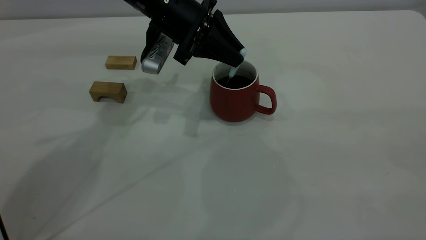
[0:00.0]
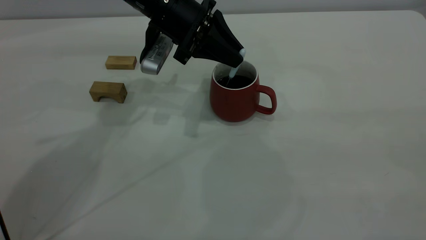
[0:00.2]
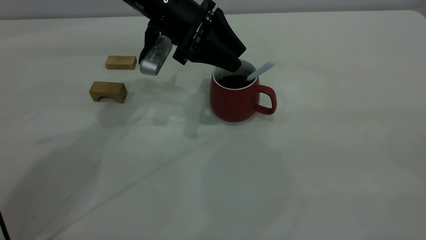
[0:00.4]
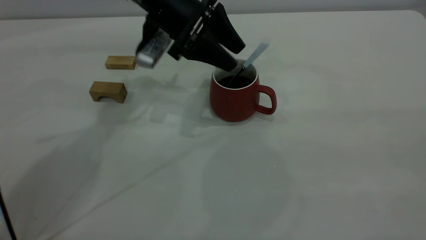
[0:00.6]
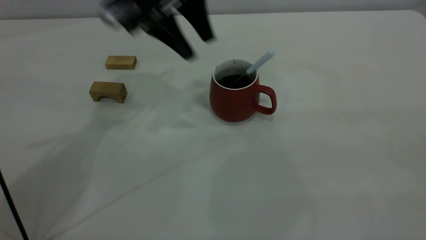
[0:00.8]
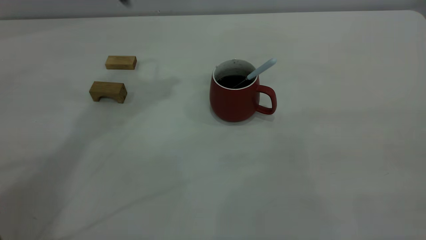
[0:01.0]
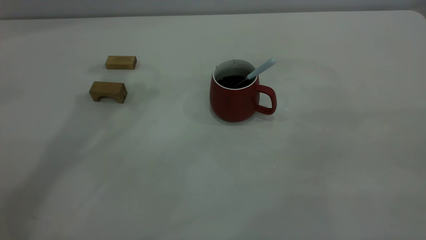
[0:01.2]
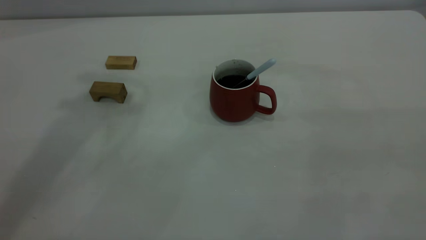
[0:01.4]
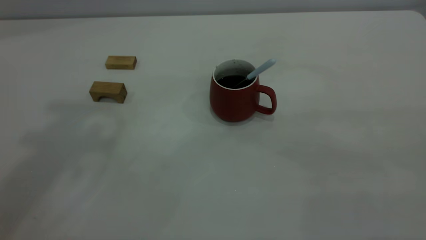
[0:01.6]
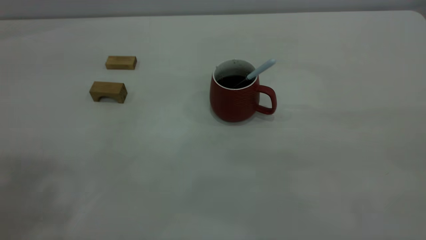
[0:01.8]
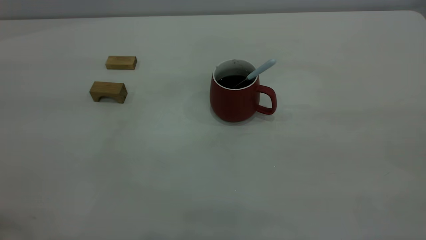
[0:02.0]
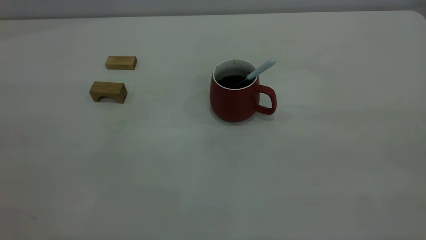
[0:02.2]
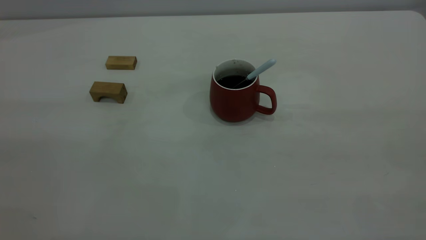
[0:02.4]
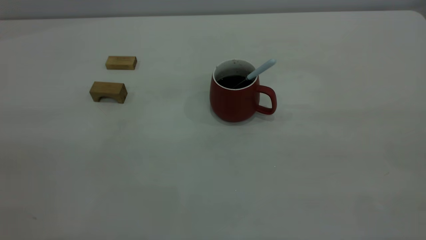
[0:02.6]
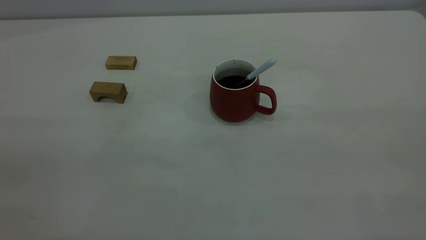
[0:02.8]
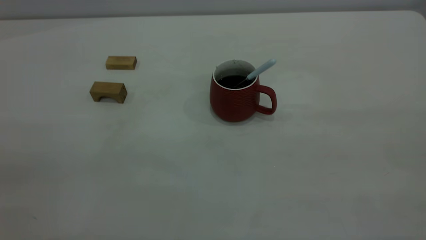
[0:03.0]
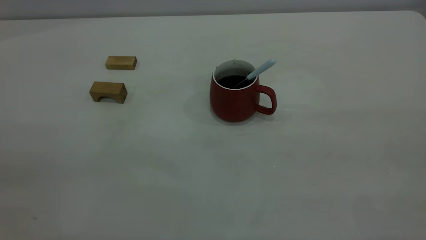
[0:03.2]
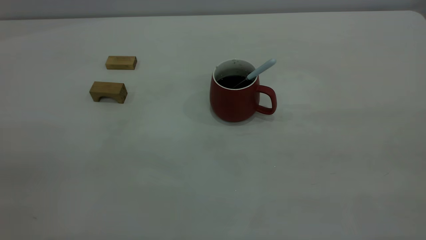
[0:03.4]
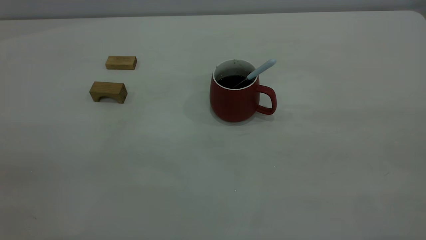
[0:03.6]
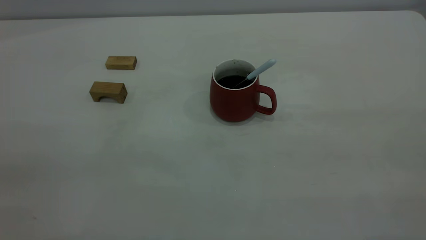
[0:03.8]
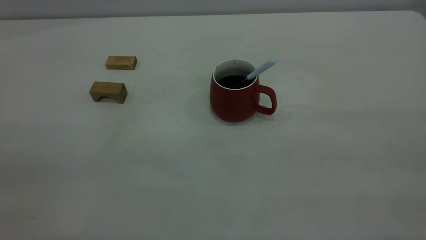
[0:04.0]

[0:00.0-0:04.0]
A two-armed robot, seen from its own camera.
0:00.0 to 0:01.4: The left gripper moves upward, some 35 cm, and opens its fingers.
